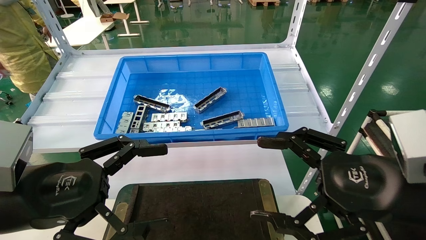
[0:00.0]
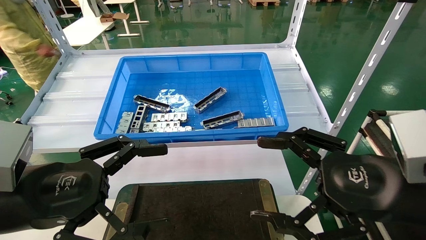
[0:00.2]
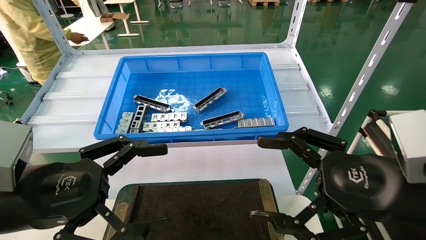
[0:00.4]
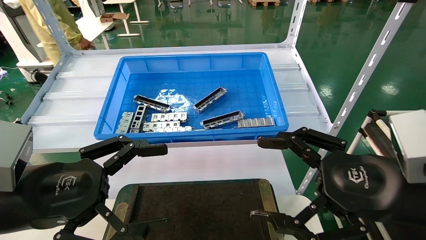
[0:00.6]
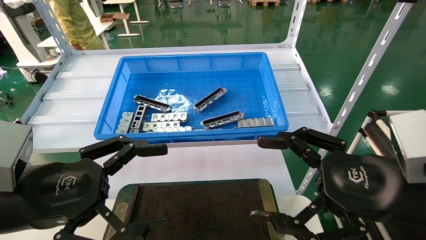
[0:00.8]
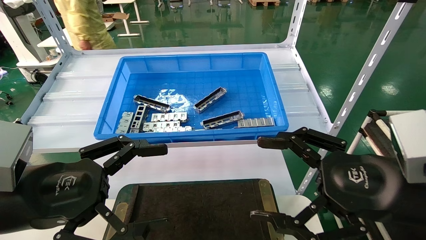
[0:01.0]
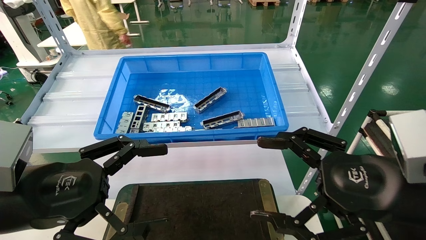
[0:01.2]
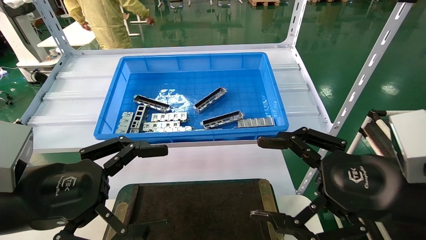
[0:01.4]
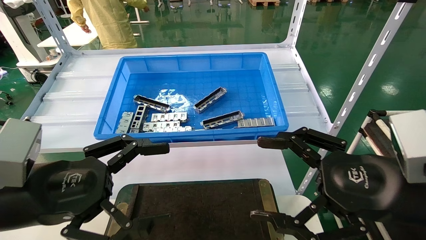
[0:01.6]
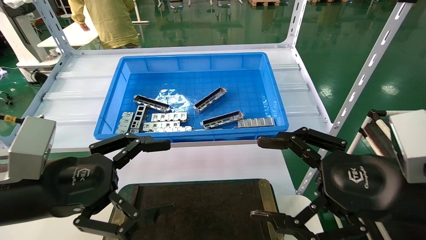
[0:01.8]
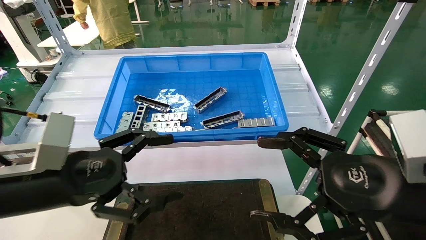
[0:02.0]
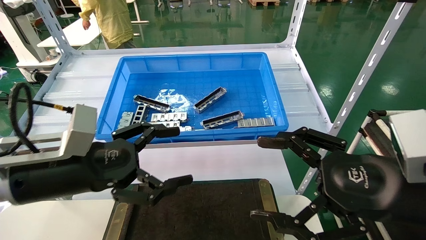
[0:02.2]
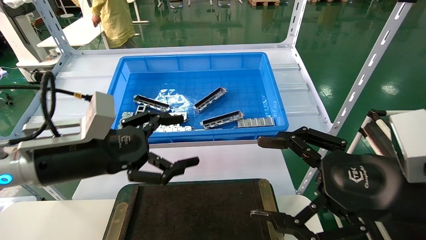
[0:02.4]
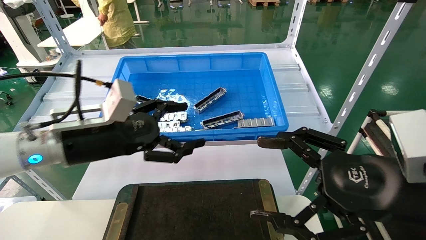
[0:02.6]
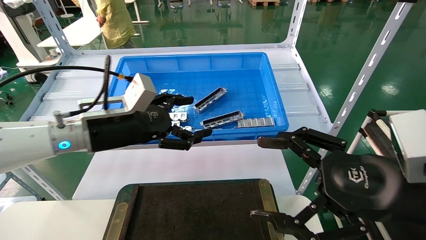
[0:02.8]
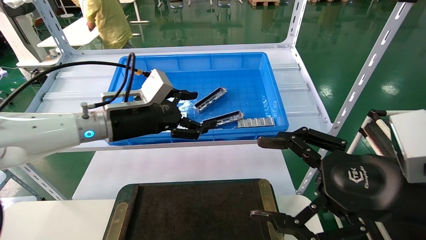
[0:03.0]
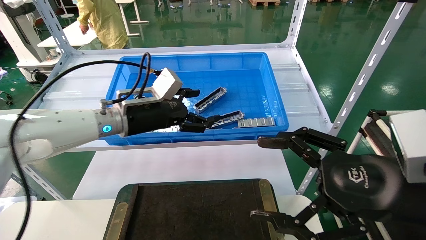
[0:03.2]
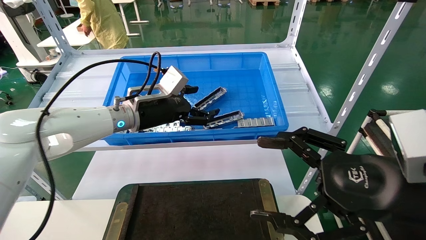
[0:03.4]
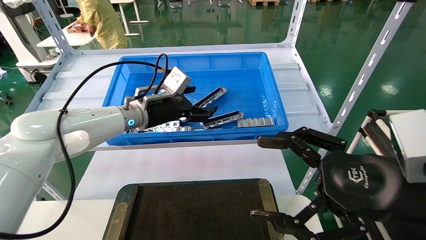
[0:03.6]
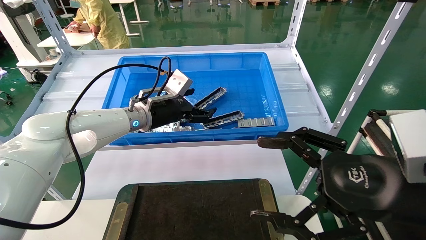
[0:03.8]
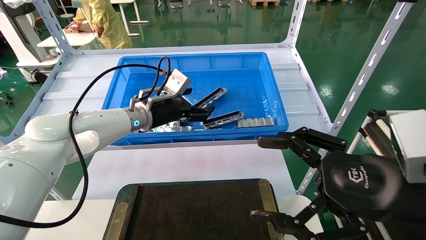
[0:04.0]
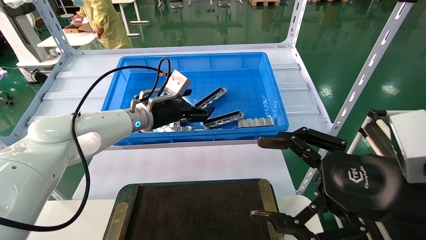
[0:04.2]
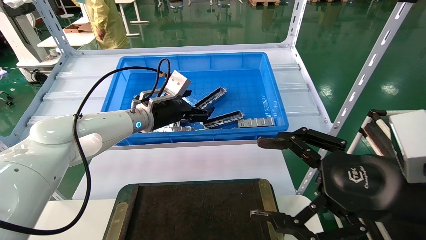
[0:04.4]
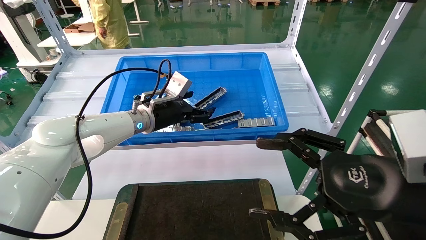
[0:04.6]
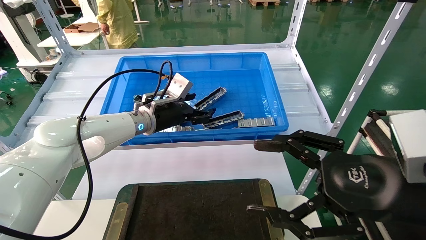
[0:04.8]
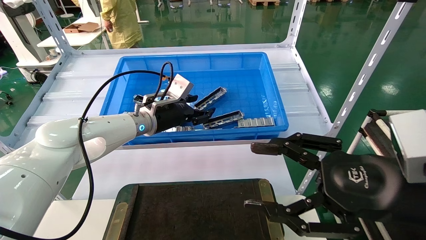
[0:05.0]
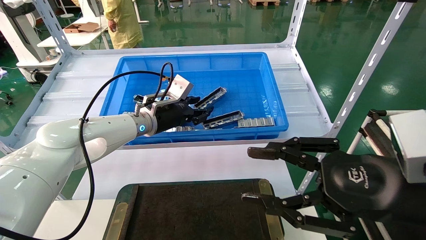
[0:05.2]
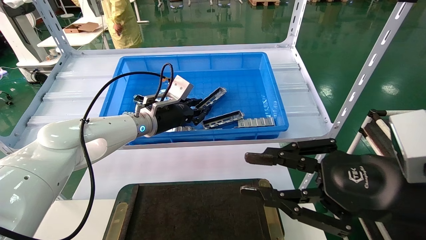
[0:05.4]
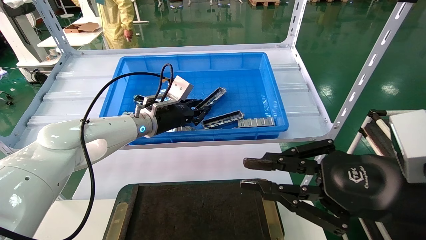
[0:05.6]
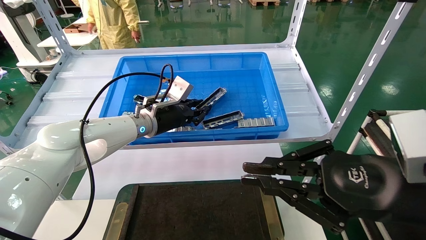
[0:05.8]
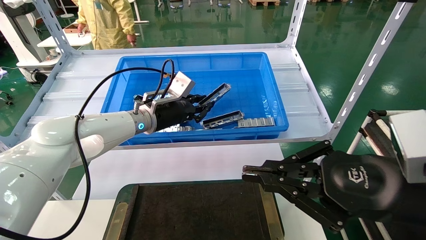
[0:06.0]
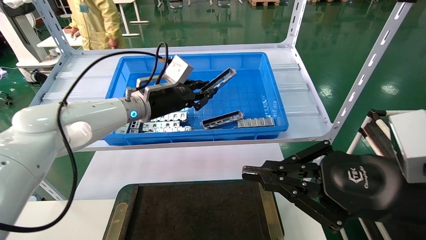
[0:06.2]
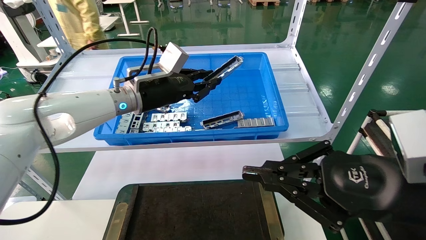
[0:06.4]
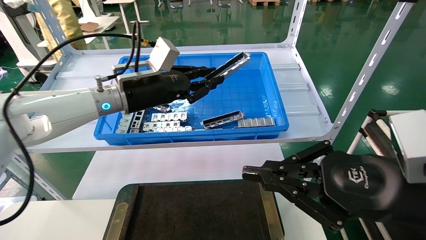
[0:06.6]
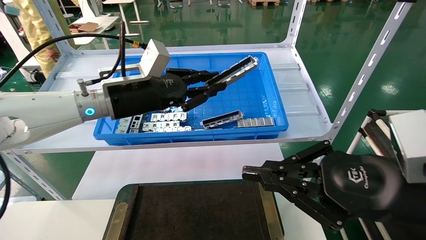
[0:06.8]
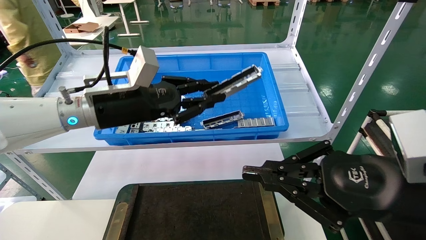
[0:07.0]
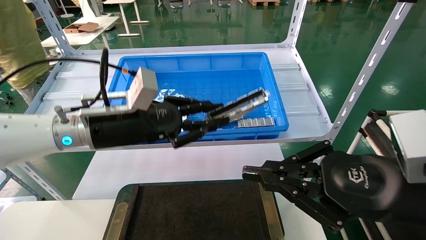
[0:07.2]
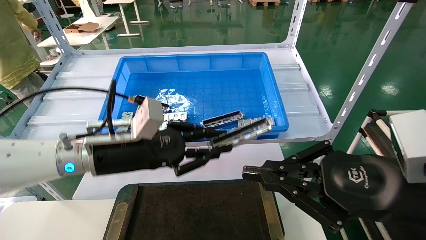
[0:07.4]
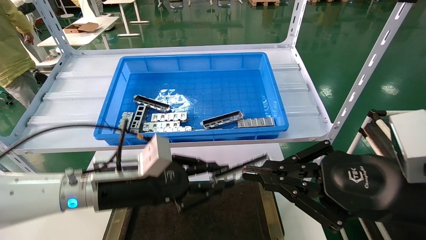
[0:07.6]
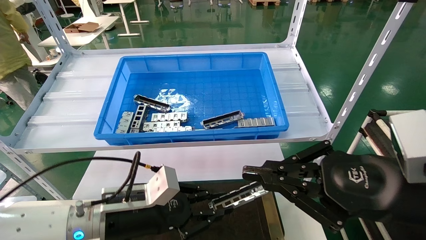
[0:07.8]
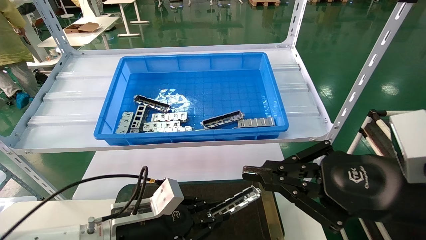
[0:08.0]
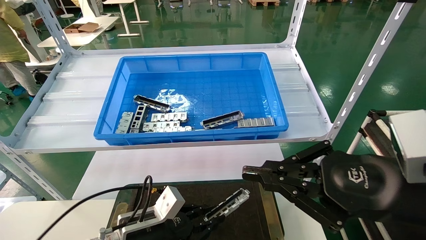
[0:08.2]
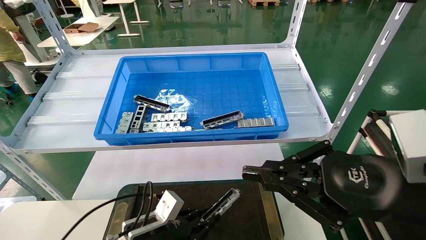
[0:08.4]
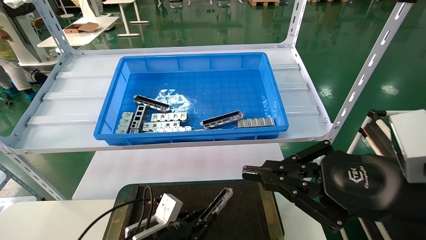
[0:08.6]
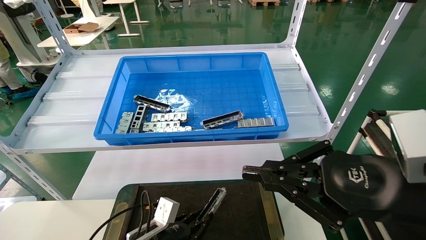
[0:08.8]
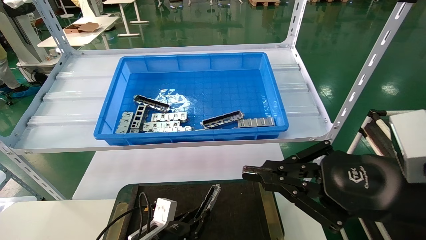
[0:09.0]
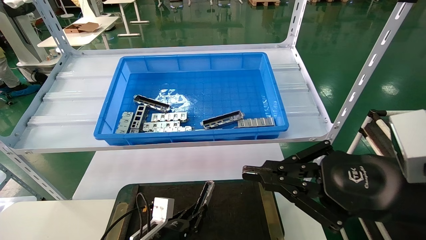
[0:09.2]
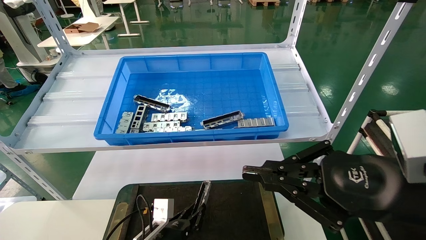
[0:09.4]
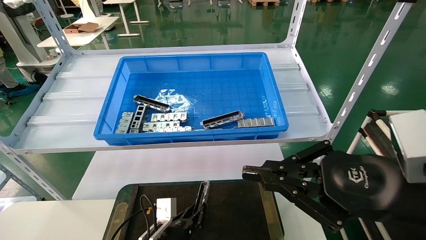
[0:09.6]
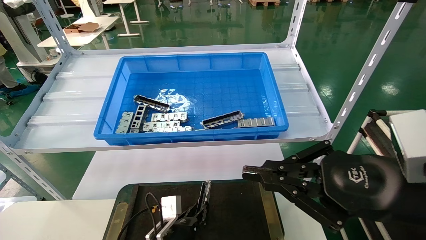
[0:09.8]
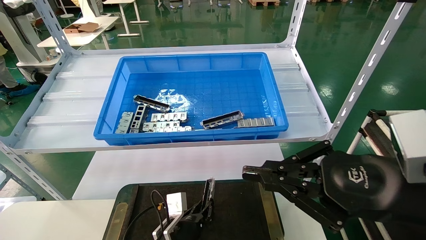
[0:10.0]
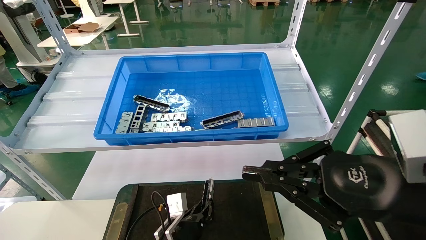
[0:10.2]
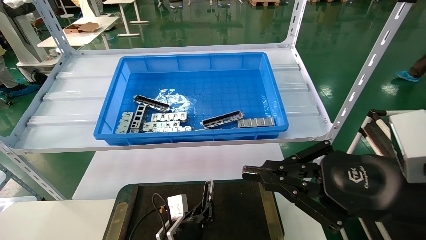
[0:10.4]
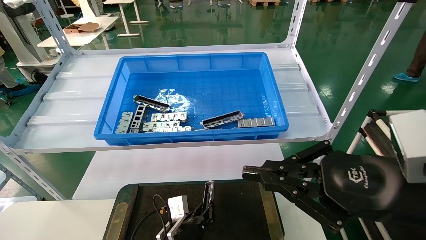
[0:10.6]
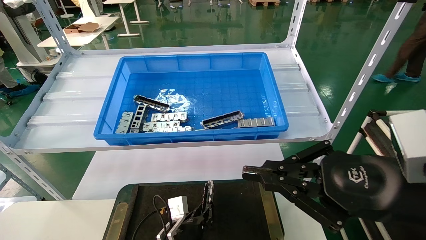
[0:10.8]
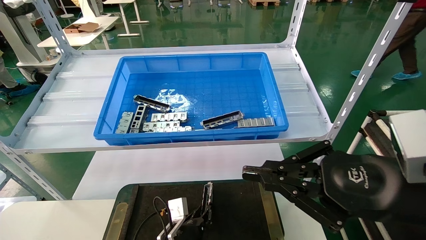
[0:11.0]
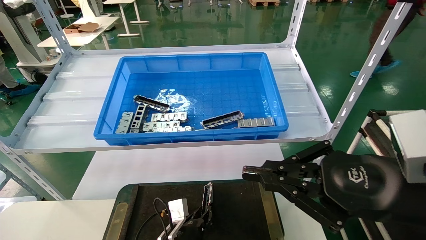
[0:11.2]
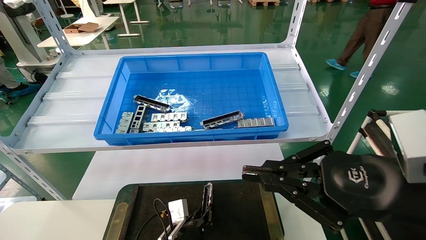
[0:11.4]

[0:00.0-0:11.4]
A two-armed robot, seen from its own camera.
Task of the whole recording: Grasp the part with one hand and place it on the black container.
Step, 0:02.0 to 0:06.4: Pick up the front USB bracket from the feeding area.
0:00.0 to 0:01.4: The two grippers keep their place.
0:01.4 to 0:02.8: The left gripper travels forward by about 15 cm.
0:02.8 to 0:04.2: The left gripper goes about 15 cm forward.
0:04.2 to 0:05.6: The right gripper closes up. The left gripper closes up.
0:05.6 to 0:07.2: The left gripper is displaced backward by approximately 15 cm.
0:07.2 to 0:08.6: The left gripper heads downward, covering approximately 25 cm.
0:08.6 to 0:10.0: The left gripper travels to the right by about 5 cm.
0:10.0 to 0:11.4: There are only small adjustments of the grippers.

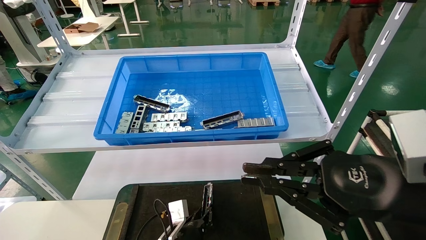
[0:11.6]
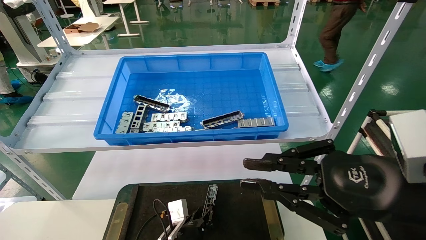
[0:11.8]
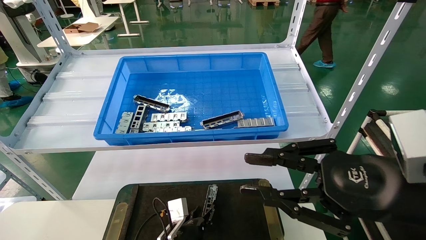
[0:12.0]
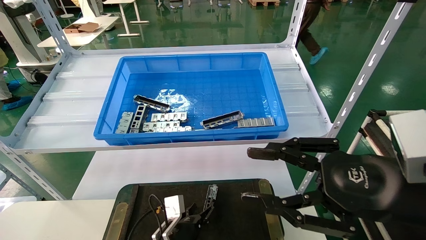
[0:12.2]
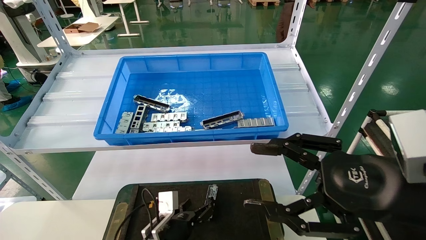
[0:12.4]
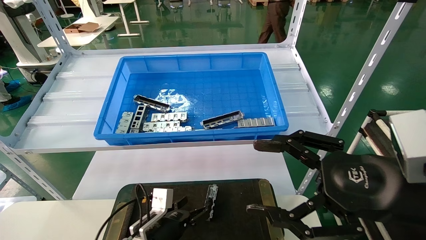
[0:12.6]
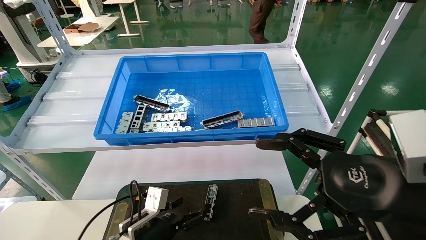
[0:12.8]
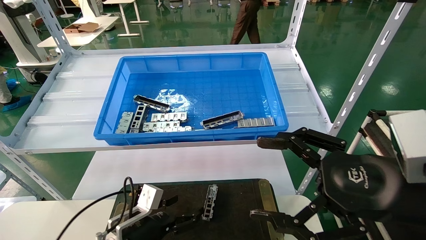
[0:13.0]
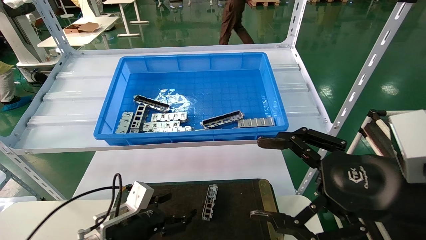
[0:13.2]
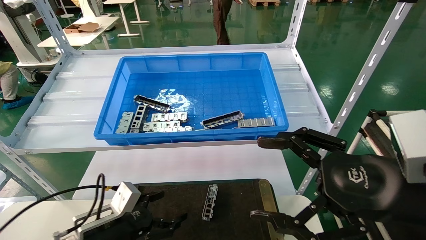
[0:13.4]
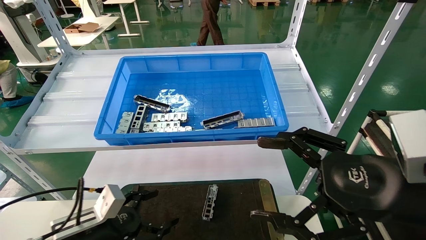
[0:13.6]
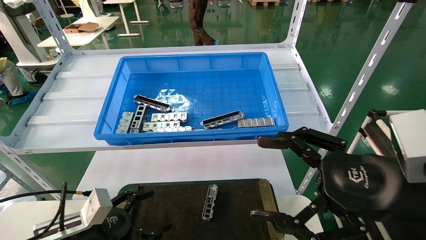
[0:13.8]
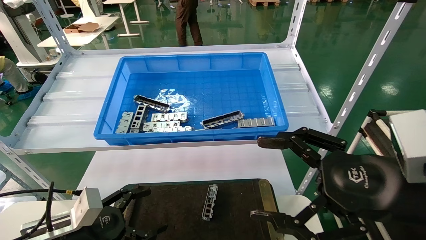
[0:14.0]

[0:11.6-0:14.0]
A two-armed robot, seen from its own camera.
Task of the whole recording: Grasp the part with one hand and place it on the black container.
0:11.6 to 0:12.8: The right gripper opens up. The left gripper goes some 10 cm to the left and upward, and opens.
0:12.8 to 0:14.0: The left gripper shifts approximately 15 cm to the left, upward and backward.
